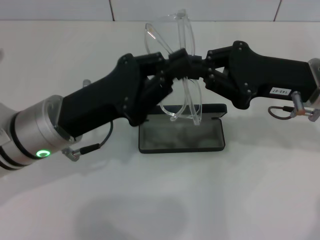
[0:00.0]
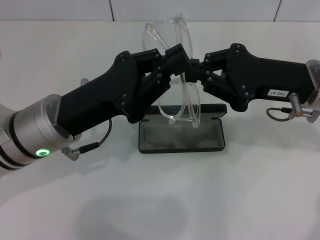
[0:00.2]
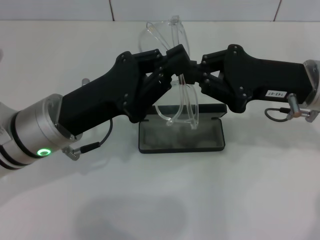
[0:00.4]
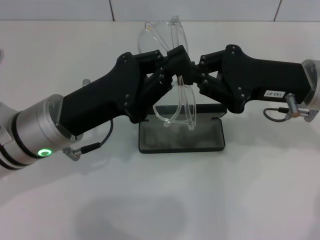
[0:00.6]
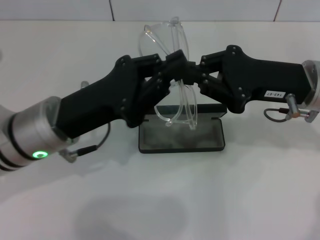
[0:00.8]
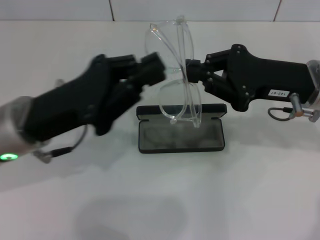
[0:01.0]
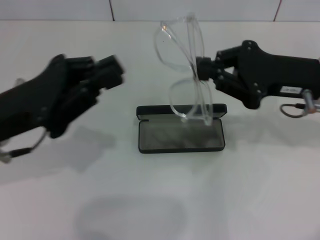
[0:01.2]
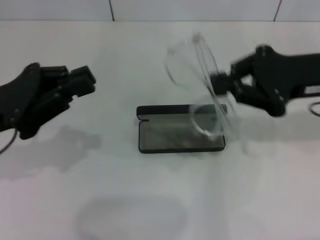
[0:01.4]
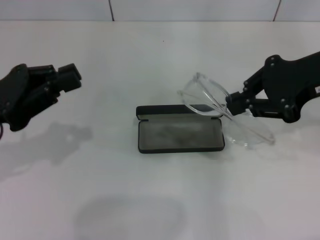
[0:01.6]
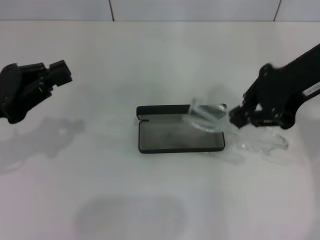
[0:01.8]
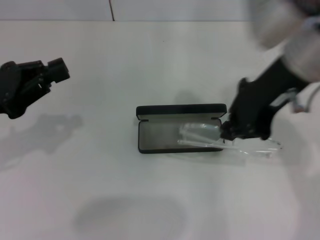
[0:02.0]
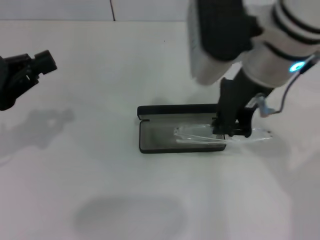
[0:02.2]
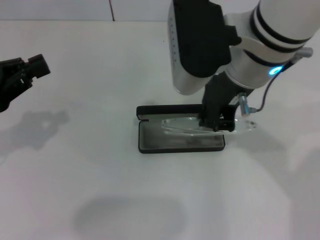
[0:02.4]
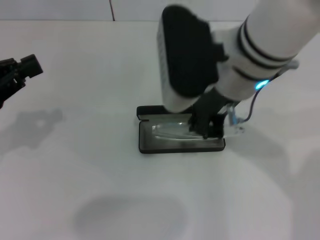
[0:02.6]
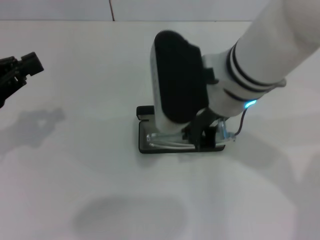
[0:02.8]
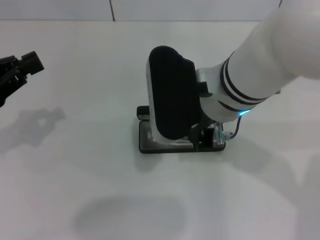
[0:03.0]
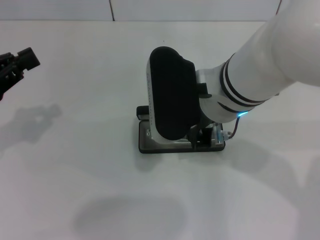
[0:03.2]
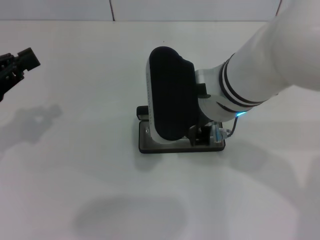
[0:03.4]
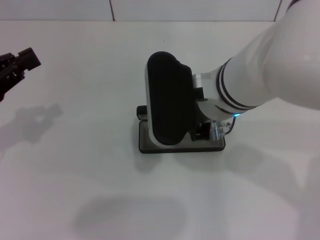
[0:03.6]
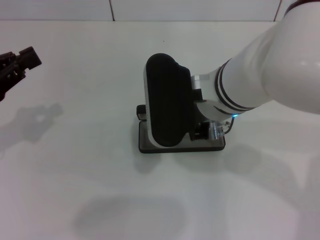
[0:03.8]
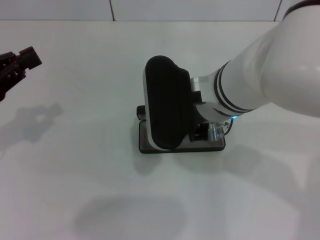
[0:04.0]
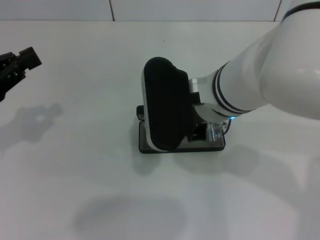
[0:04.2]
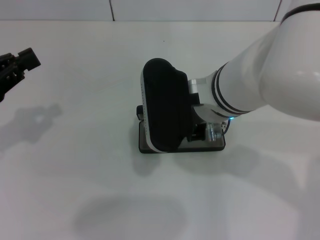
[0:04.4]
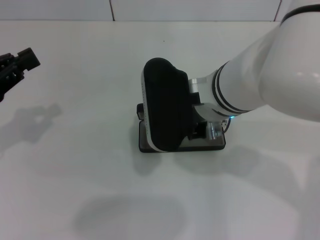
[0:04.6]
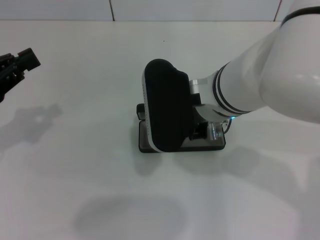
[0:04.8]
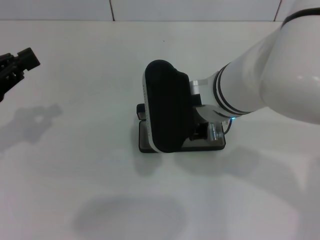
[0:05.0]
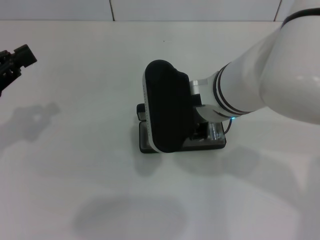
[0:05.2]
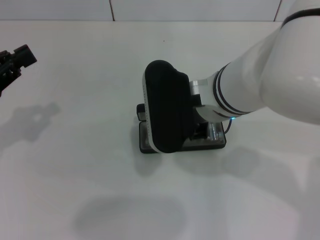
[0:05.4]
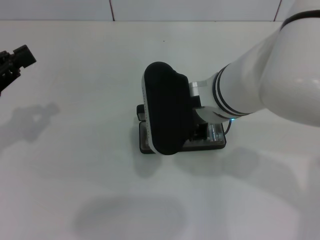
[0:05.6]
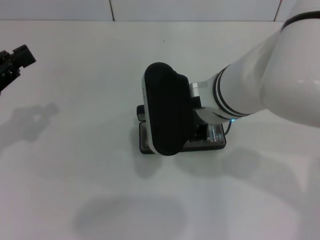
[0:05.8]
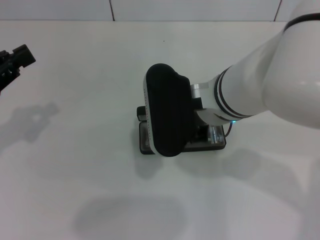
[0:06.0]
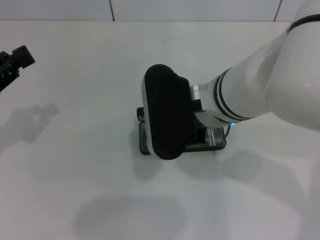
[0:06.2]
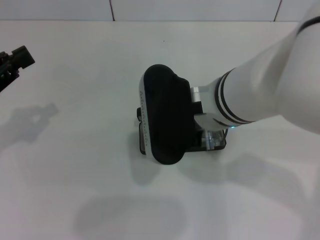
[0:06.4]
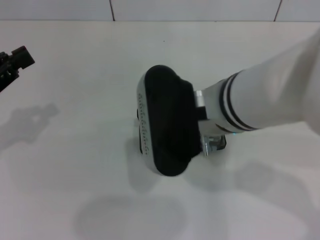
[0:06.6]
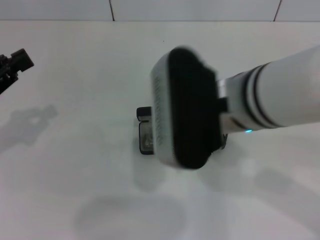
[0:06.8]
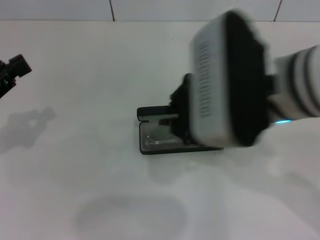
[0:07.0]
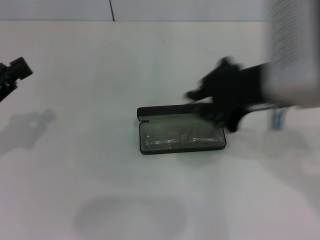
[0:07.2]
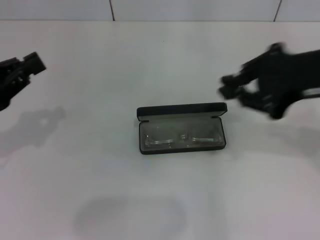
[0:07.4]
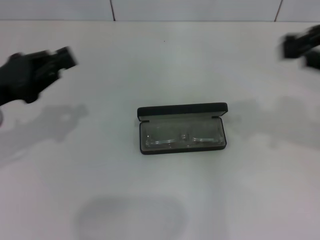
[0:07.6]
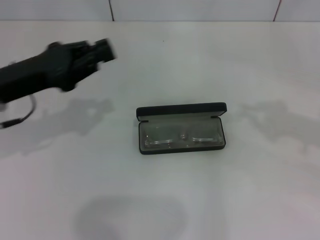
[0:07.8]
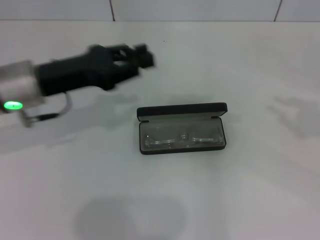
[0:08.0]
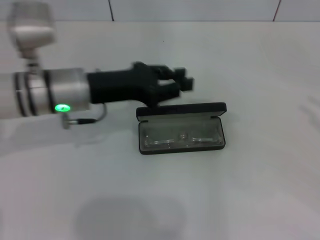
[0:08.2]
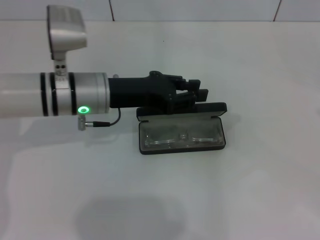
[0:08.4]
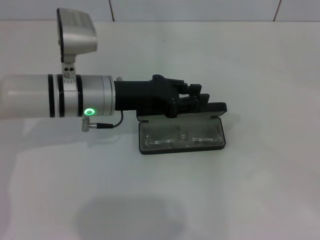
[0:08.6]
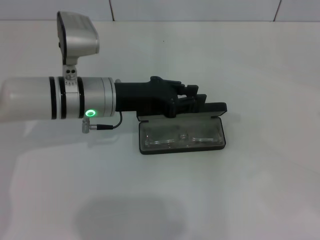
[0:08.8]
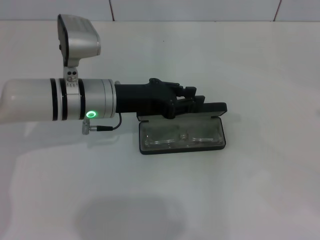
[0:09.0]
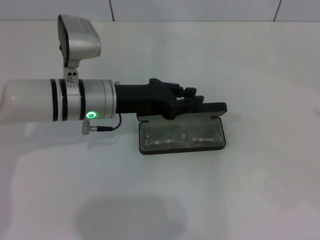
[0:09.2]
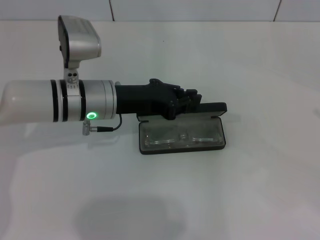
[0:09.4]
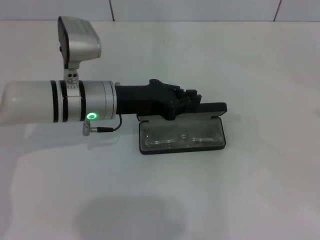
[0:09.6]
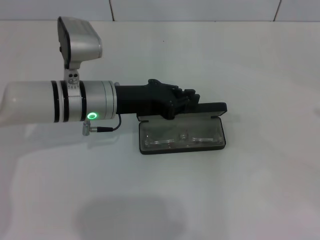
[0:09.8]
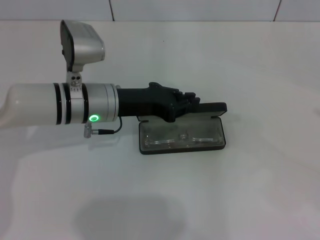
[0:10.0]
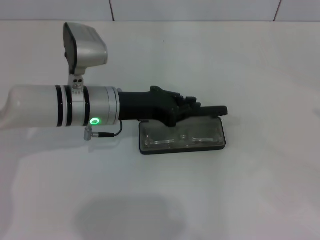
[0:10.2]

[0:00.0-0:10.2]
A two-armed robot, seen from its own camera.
Step, 0:00.4 to 0:06.0: Put the glasses into the case with your right hand.
0:00.0 to 0:01.4: The right gripper moves some 5 cm. The left gripper heads to the left, covering roughly 10 cm.
0:01.4 to 0:03.0: The left gripper shifts about 5 cm to the left. Meanwhile the right gripper heads to the left, covering roughly 20 cm.
0:03.0 to 0:04.4: The grippers stay close to where they were, moving slightly.
0:04.4 to 0:05.8: Both grippers stay put.
0:05.8 to 0:07.2: The right gripper goes some 10 cm to the right and upward.
0:07.2 to 0:08.8: The left gripper heads to the right and forward, covering some 25 cm, while the right gripper moves to the right, roughly 30 cm.
0:08.8 to 0:10.2: There are only small adjustments of the grippers.

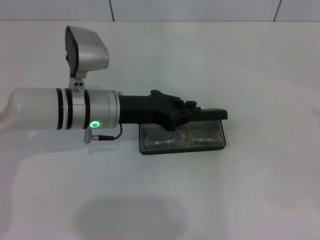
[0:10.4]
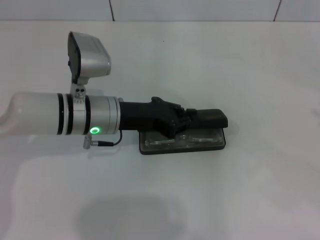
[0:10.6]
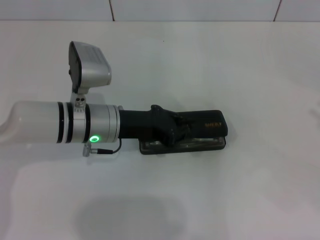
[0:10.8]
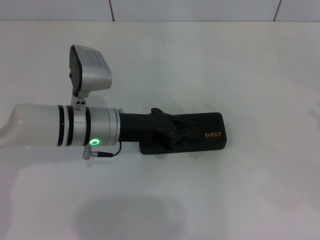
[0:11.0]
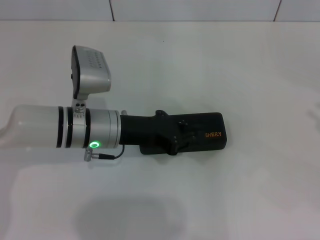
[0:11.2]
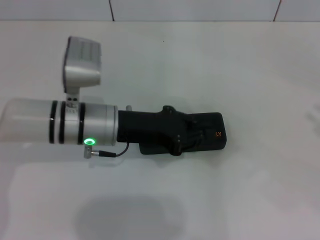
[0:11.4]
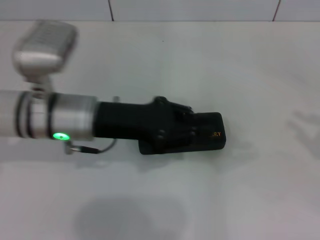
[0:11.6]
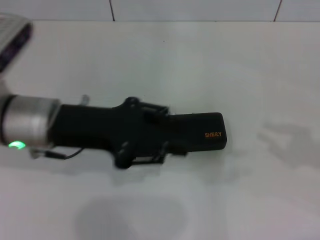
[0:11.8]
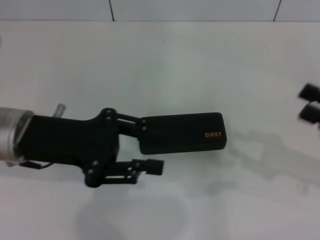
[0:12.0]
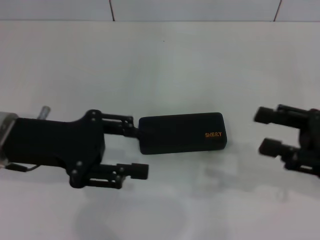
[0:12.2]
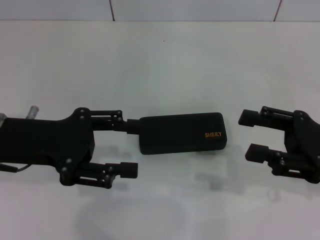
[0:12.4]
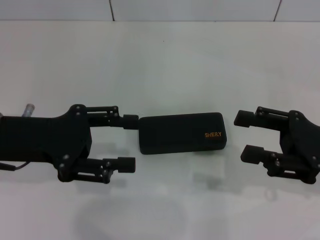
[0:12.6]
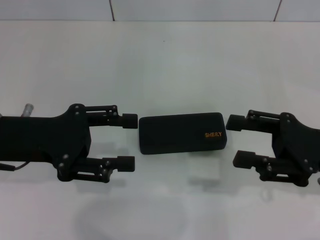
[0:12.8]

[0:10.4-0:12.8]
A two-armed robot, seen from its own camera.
0:10.4 to 0:11.6: The left gripper shifts by about 5 cm.
0:11.6 to 0:12.8: Both grippers travel together to the left, roughly 10 cm. The right gripper opens; the left gripper opens up.
